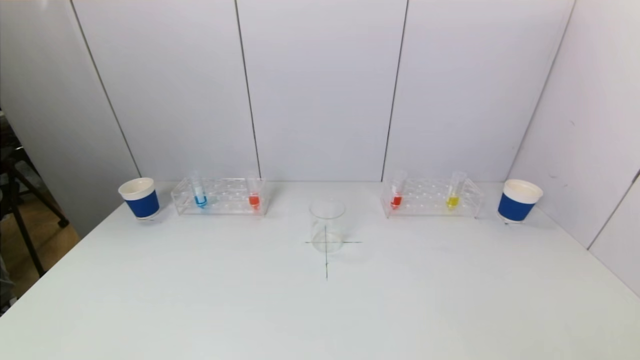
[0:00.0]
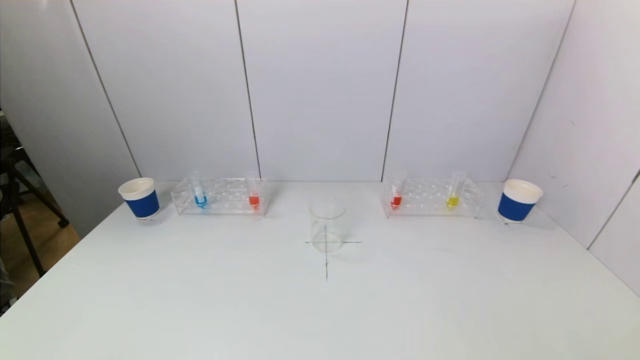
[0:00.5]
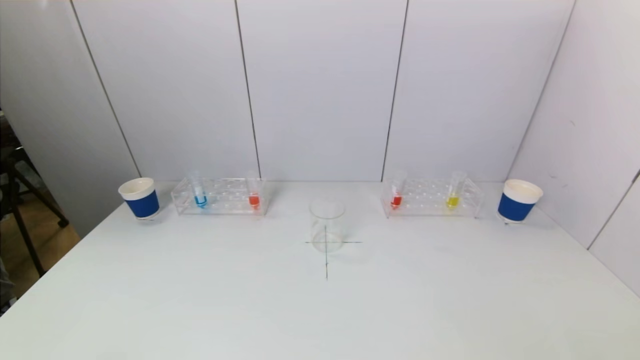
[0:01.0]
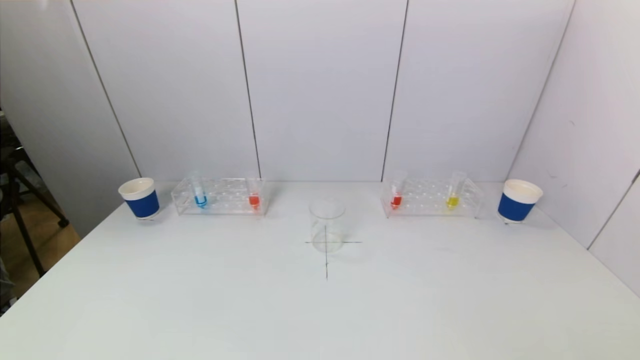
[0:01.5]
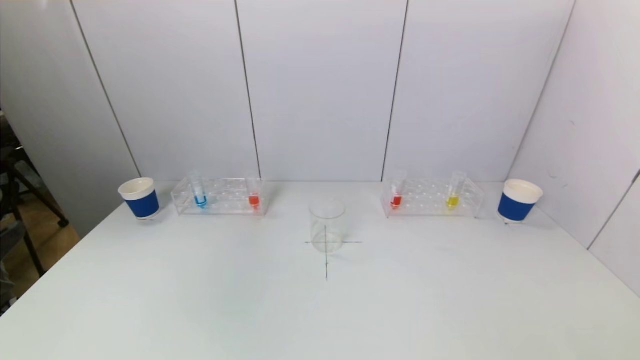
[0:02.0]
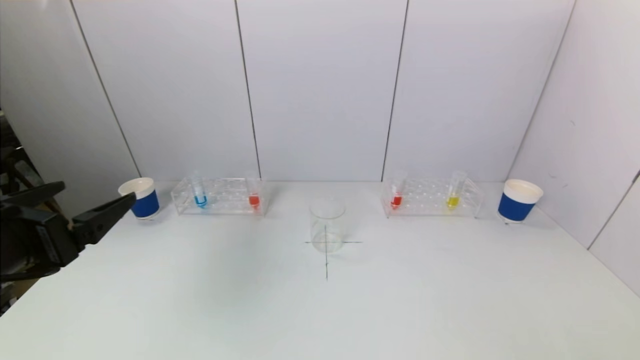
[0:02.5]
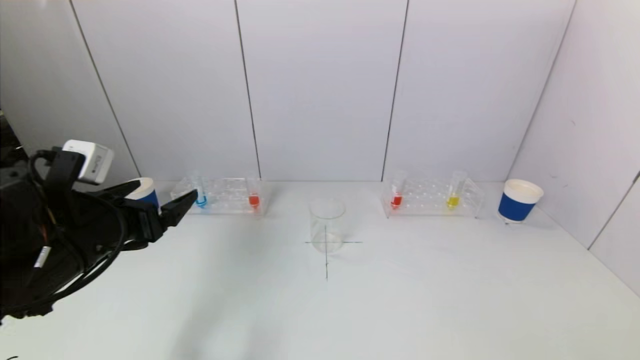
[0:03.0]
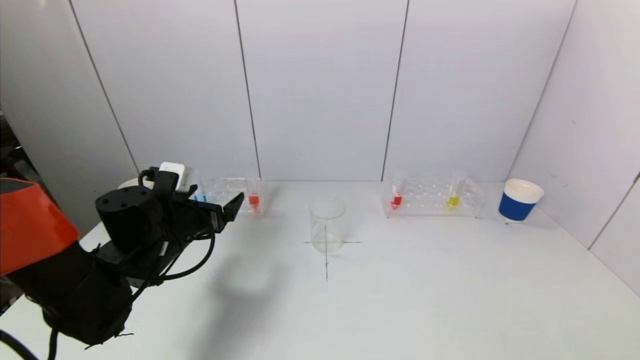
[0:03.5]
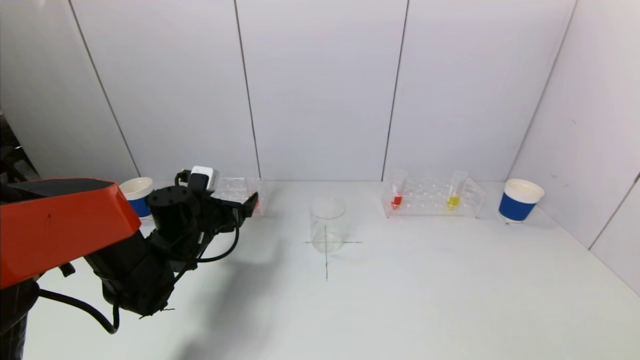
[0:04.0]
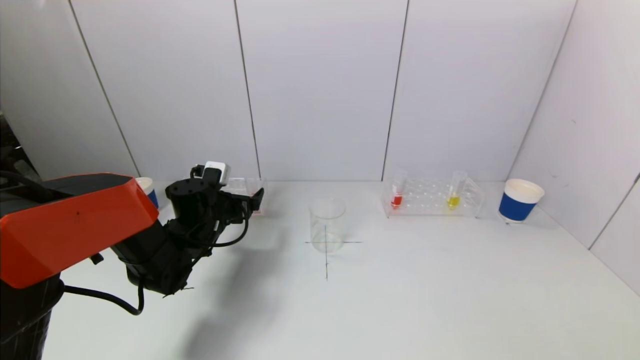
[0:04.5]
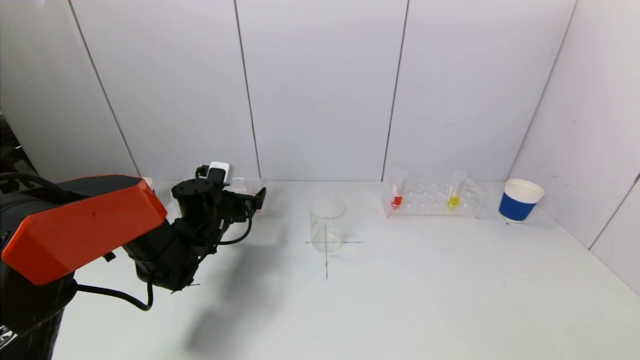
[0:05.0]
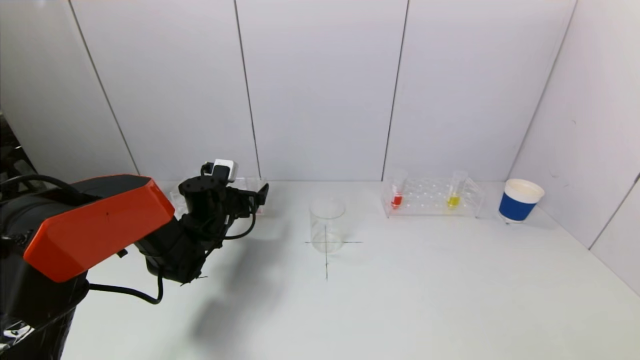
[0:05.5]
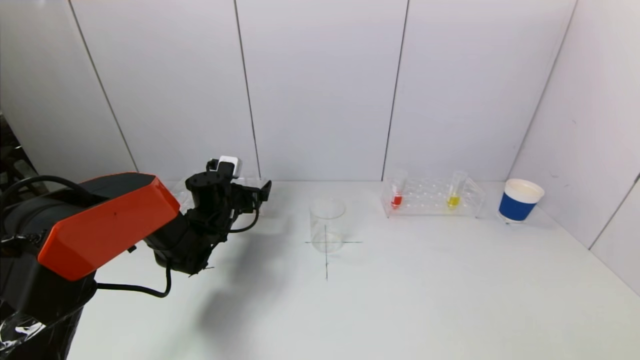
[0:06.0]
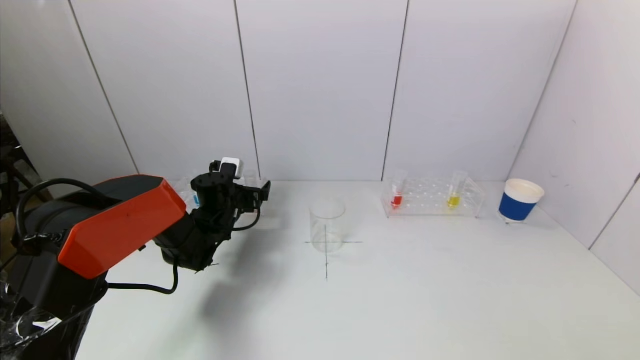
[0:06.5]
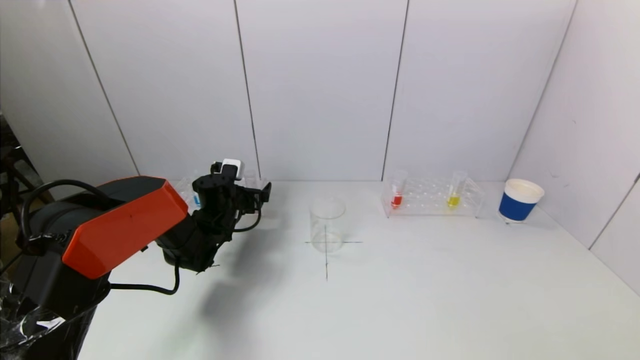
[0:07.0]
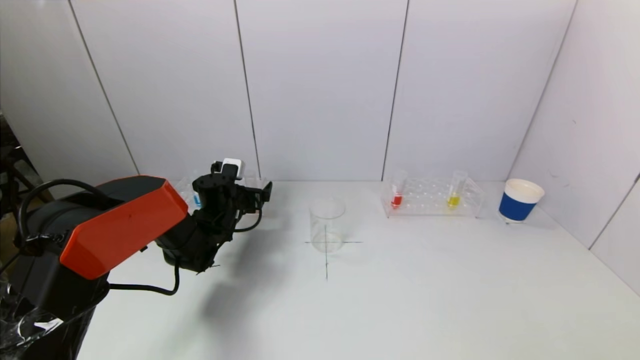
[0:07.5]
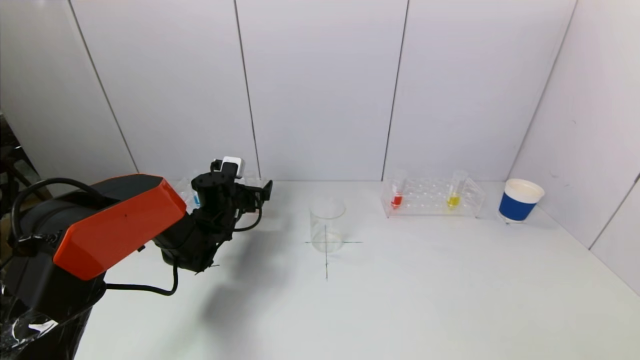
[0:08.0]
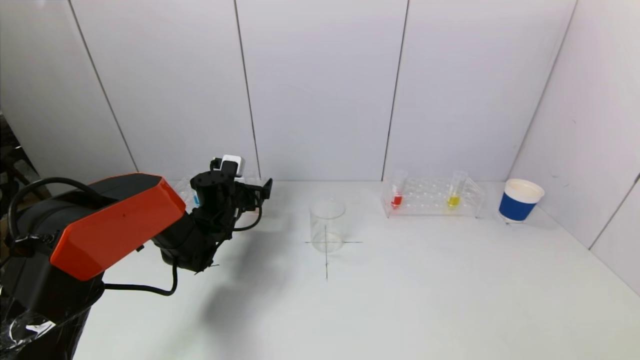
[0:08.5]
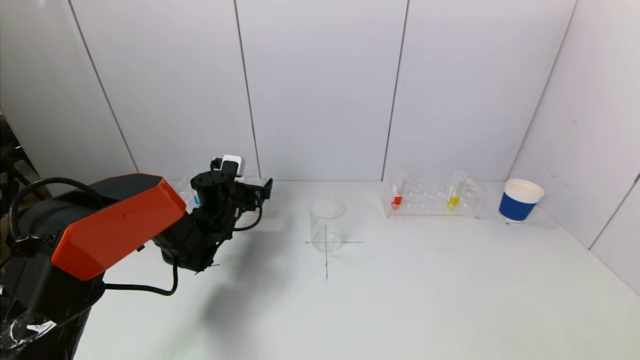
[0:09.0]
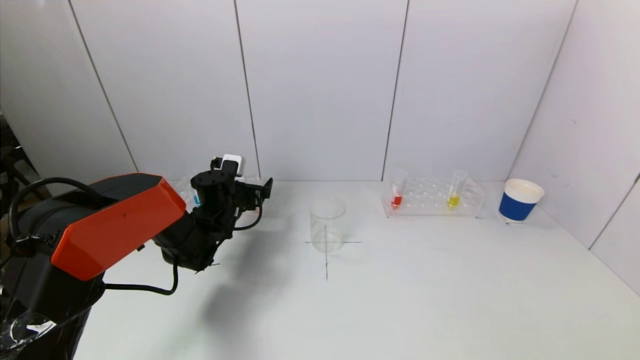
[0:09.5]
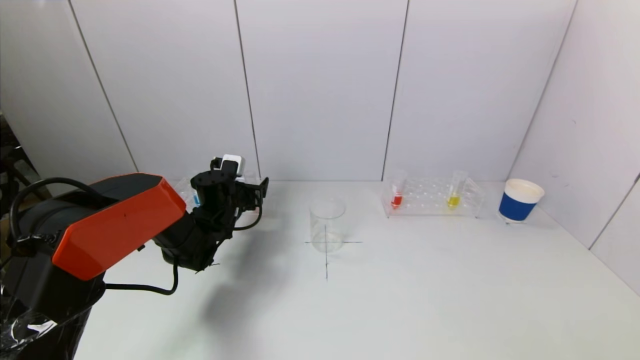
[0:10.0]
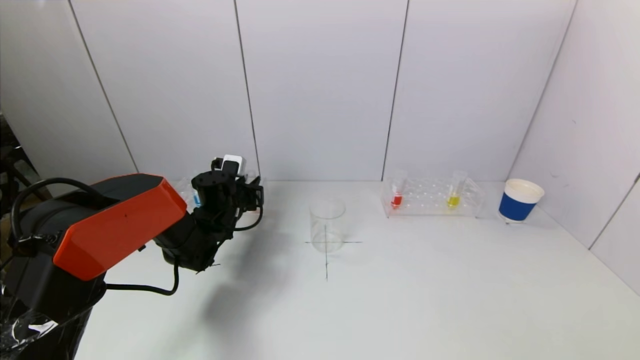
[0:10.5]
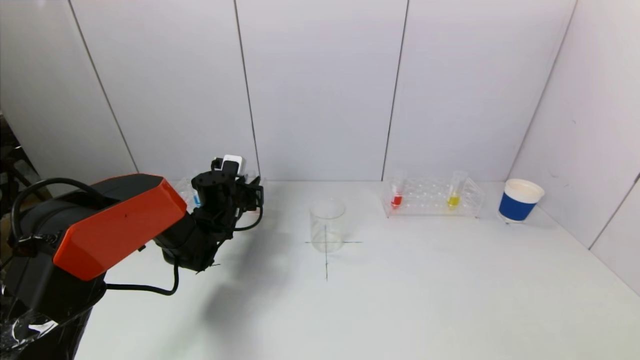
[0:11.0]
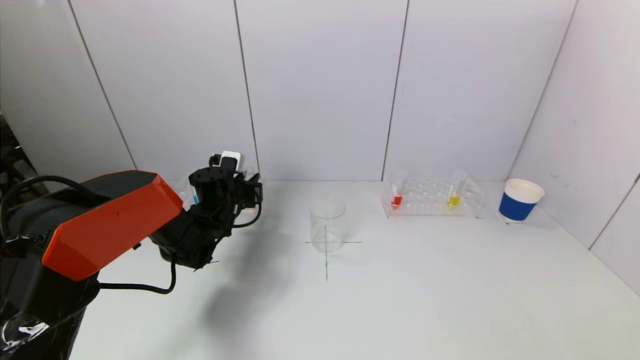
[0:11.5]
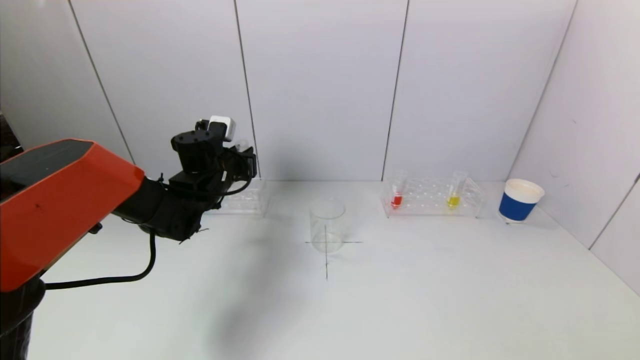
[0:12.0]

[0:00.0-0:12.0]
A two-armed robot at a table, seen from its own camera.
Task of the whole recording: pick up a test tube with pigment on left test tube rack and a test tube with pigment on right test tube rack by grippers and pour them into the beaker.
Step, 0:00.0 to 0:10.5: Grasp the red reagent with the left gripper.
0:02.0 to 0:04.0: The left gripper is displaced forward and downward by roughly 35 cm.
0:04.0 to 0:06.0: The left gripper goes some 5 cm forward.
0:06.0 to 0:08.0: There are only small adjustments of the grippers.
0:08.0 to 0:10.0: Both grippers stay about where they are.
0:10.0 to 0:12.0: The left gripper heads upward, covering some 10 cm, and closes.

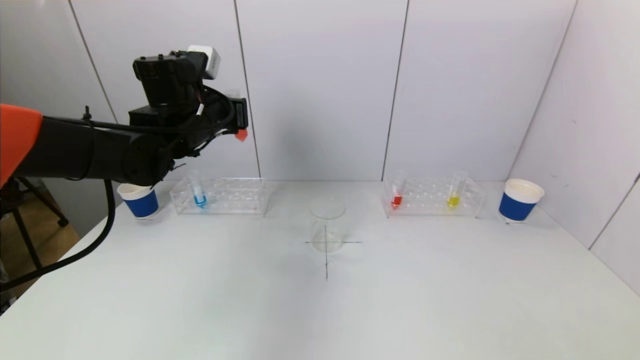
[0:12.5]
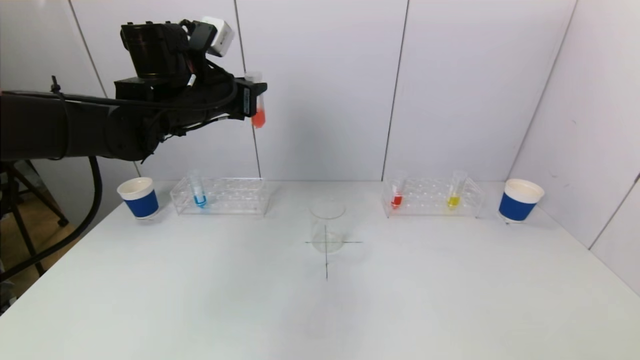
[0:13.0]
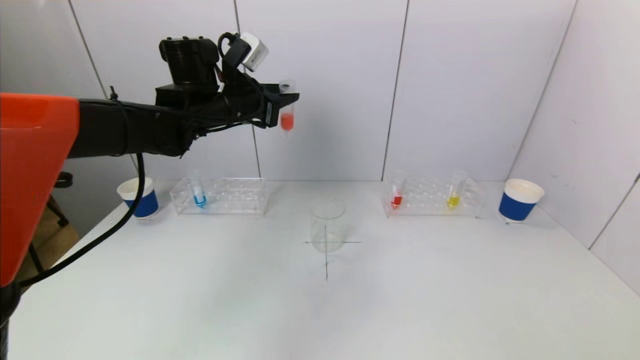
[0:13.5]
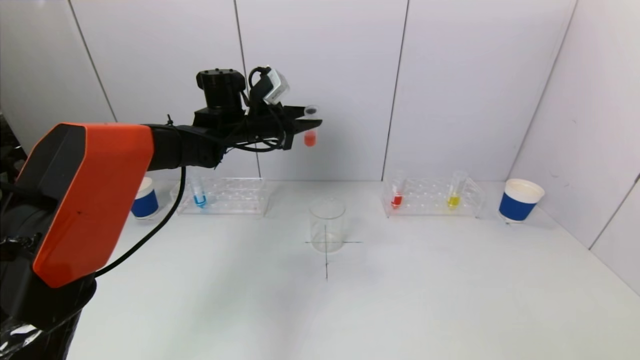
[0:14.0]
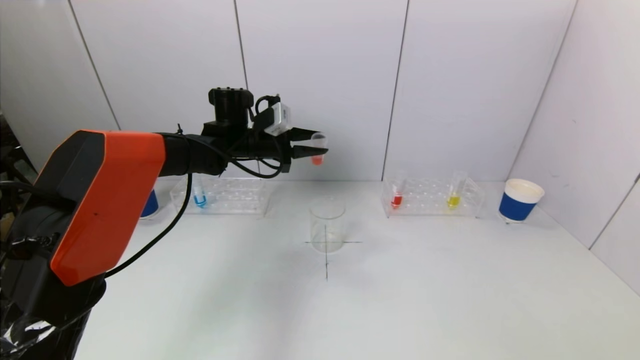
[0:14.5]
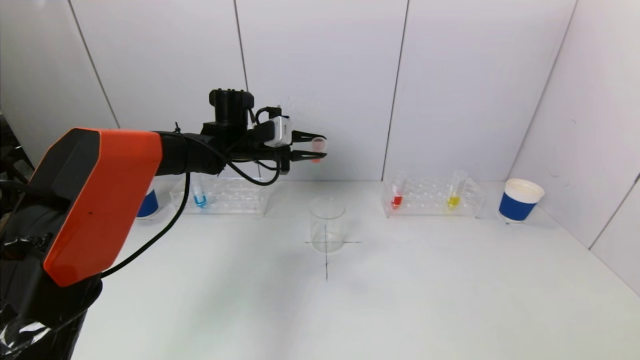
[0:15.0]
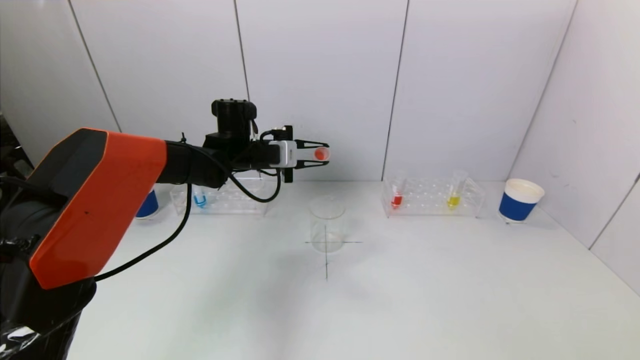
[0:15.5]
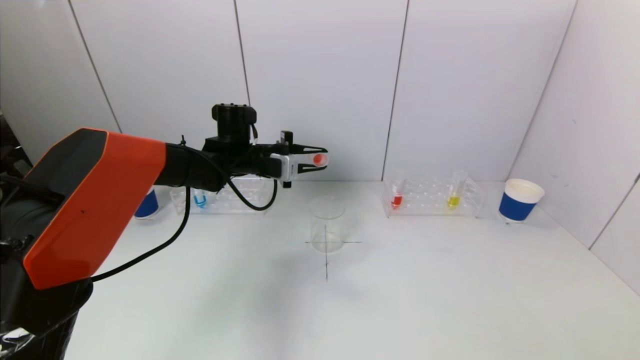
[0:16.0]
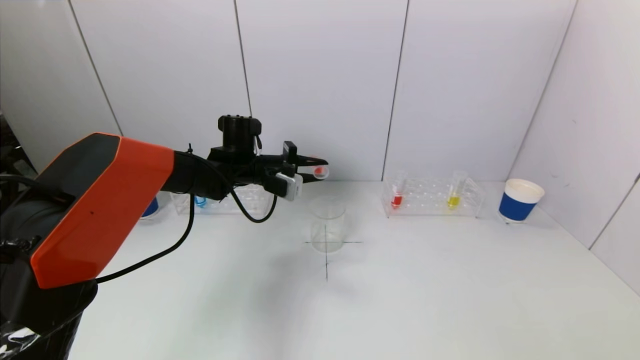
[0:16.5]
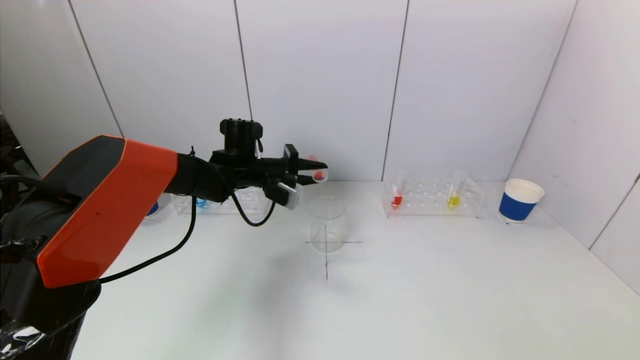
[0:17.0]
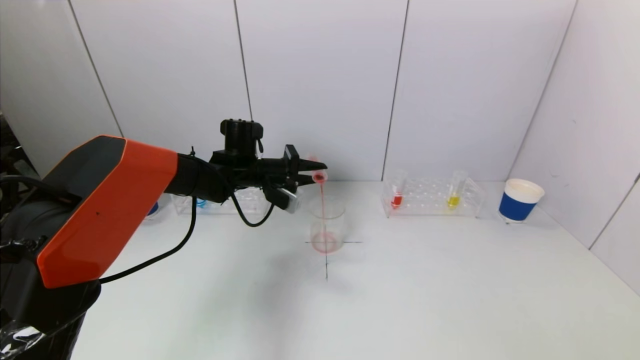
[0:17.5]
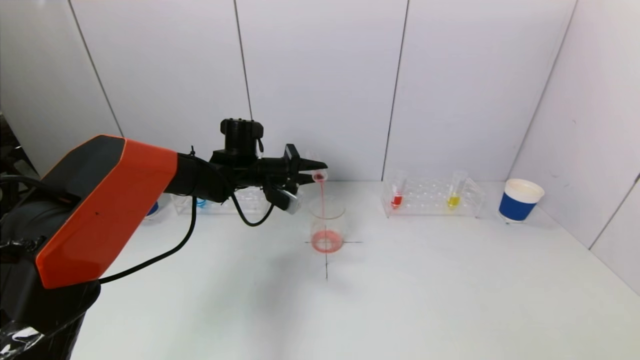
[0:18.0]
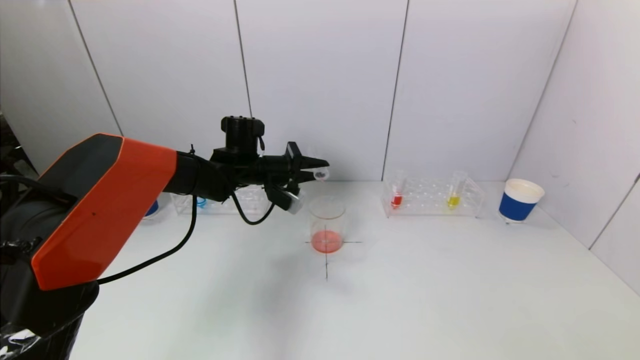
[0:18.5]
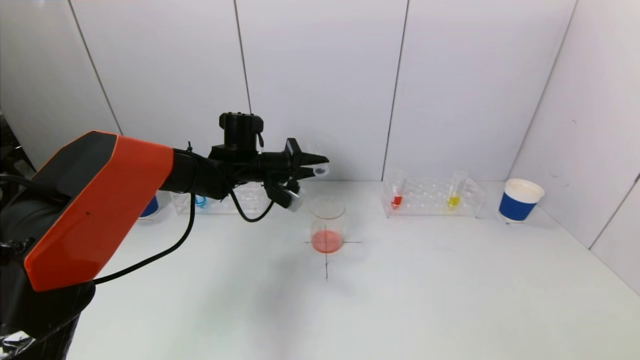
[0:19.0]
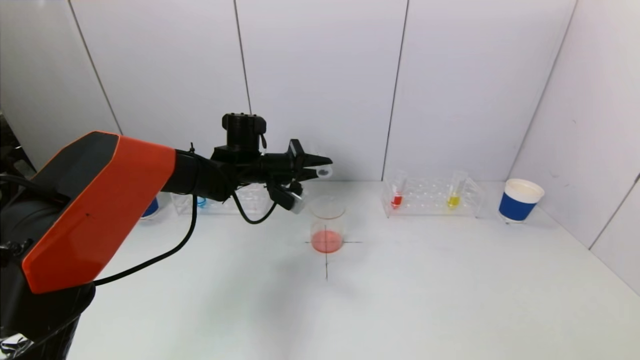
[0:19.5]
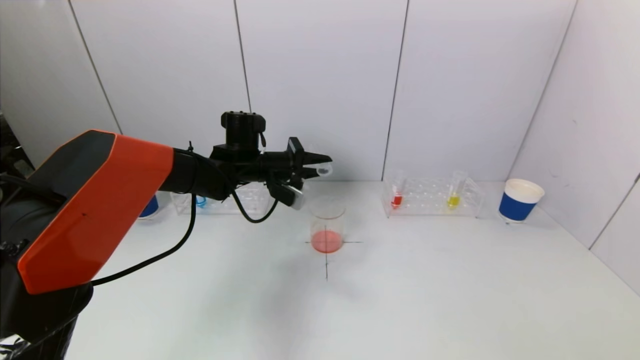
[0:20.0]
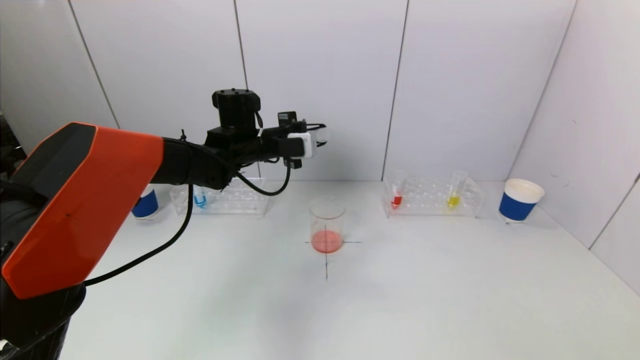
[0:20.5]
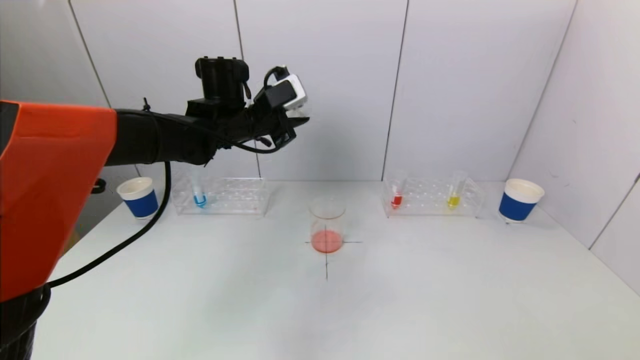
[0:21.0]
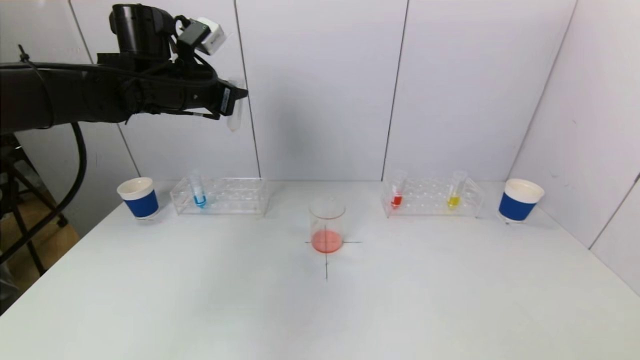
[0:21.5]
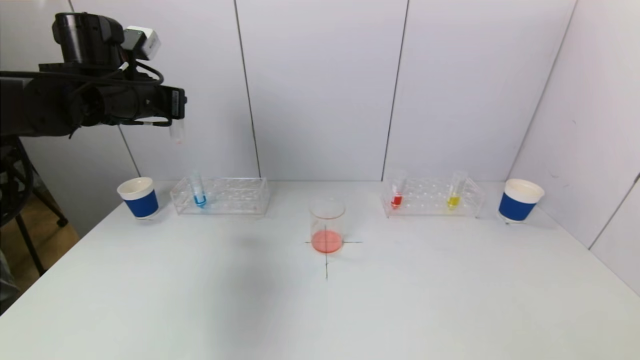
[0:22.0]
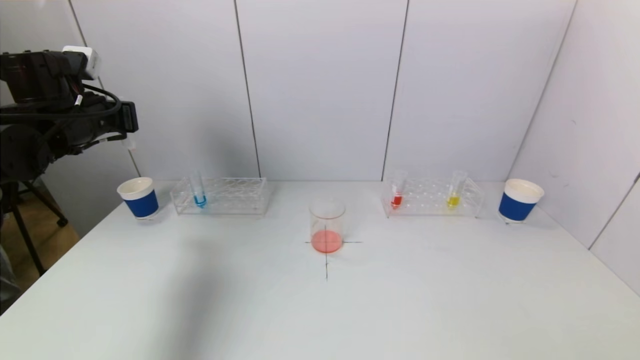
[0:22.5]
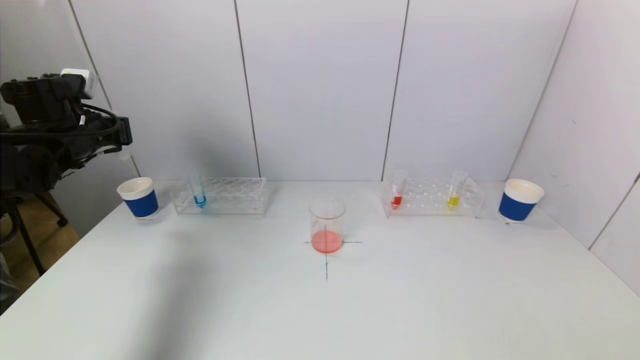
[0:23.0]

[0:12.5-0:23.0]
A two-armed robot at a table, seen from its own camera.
Task of the whole recording: pick up a test tube with pigment on left test tube rack and a test tube with pigment on right test tube rack by grippers and pour them into the beaker.
Step, 0:12.5 to 0:19.0: Pour the red reagent into the graduated cylinder with the left gripper.
0:12.5 to 0:14.5: The left gripper is displaced forward, downward and to the right by approximately 10 cm.
0:14.5 to 0:16.5: The left gripper shifts by approximately 5 cm.
0:19.0 to 0:21.0: The left gripper moves upward, about 10 cm.
0:21.0 to 0:23.0: The left gripper goes about 25 cm to the left.
